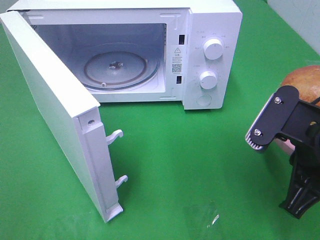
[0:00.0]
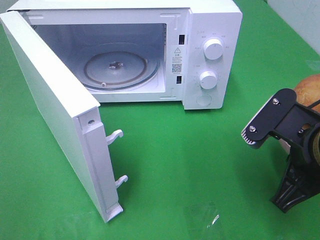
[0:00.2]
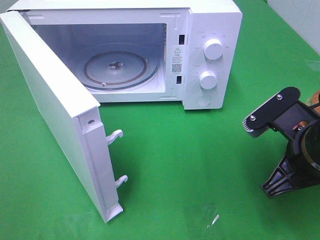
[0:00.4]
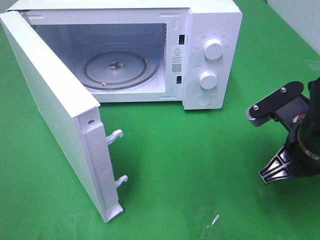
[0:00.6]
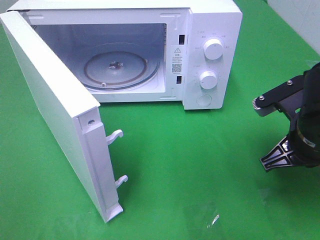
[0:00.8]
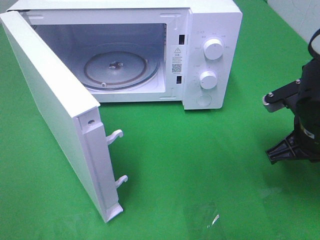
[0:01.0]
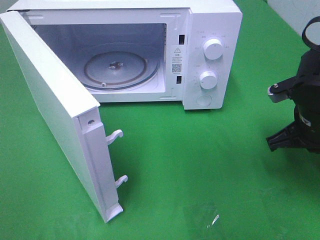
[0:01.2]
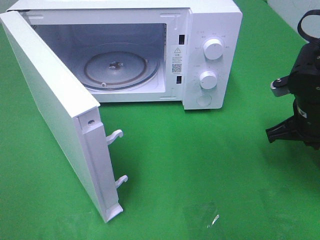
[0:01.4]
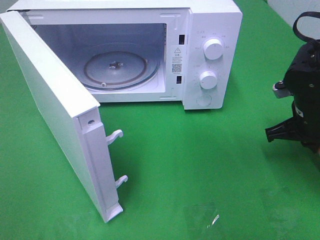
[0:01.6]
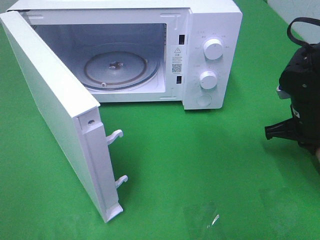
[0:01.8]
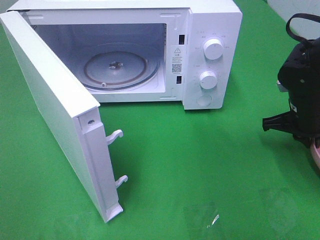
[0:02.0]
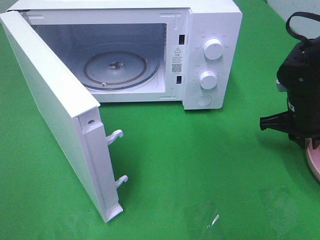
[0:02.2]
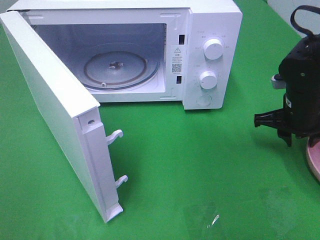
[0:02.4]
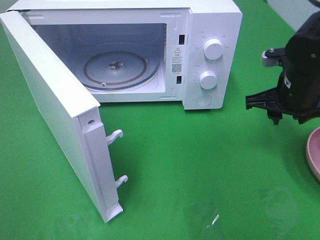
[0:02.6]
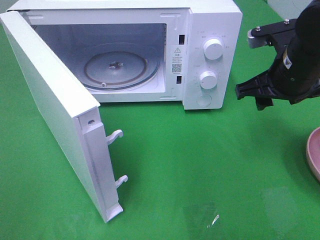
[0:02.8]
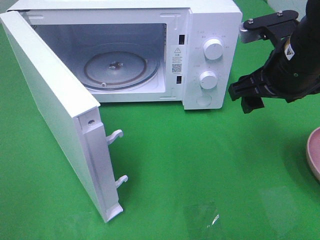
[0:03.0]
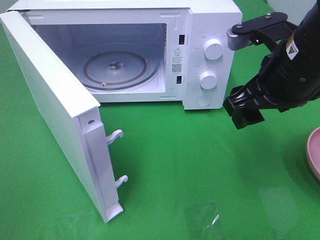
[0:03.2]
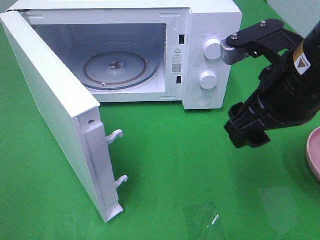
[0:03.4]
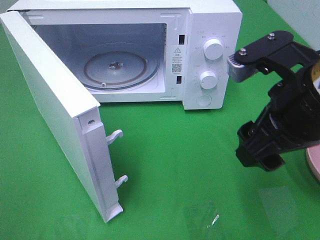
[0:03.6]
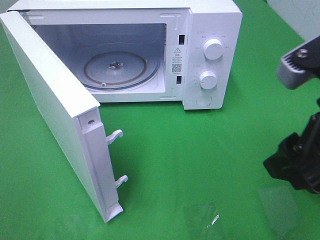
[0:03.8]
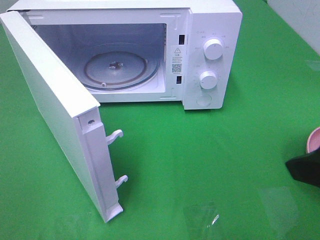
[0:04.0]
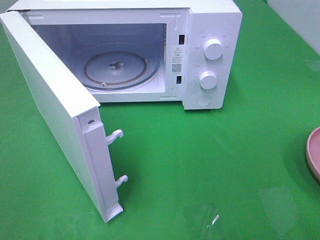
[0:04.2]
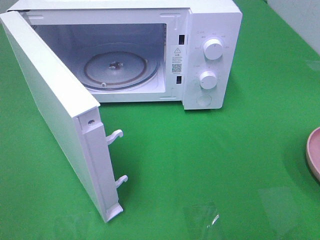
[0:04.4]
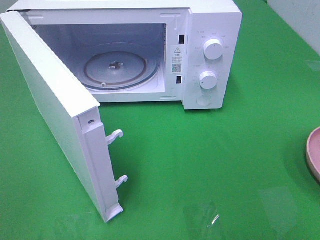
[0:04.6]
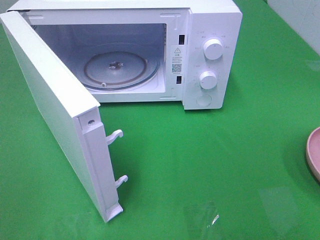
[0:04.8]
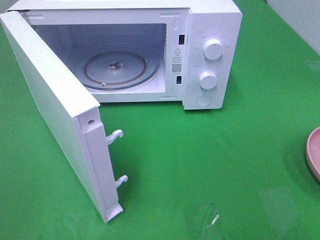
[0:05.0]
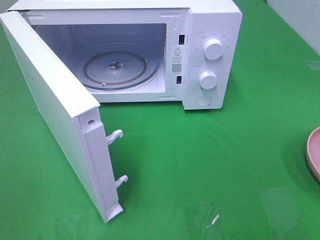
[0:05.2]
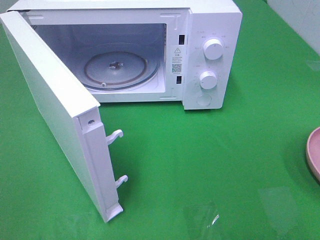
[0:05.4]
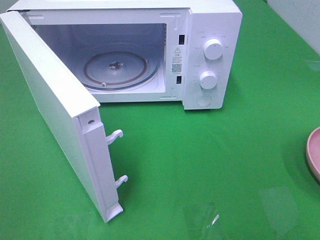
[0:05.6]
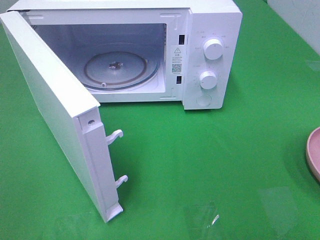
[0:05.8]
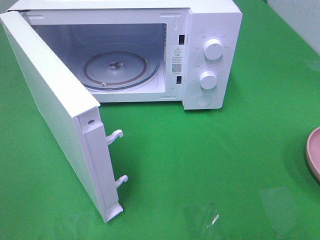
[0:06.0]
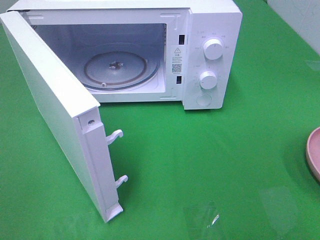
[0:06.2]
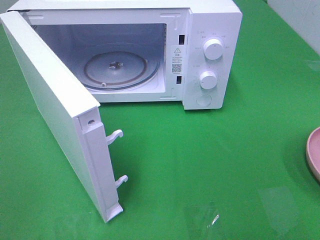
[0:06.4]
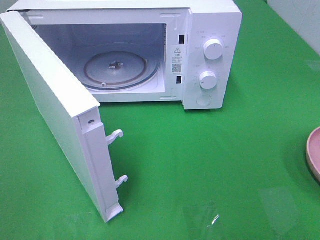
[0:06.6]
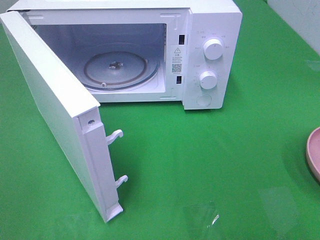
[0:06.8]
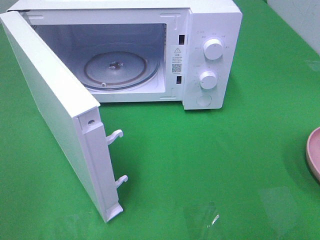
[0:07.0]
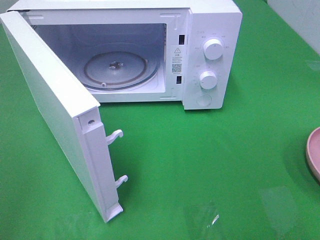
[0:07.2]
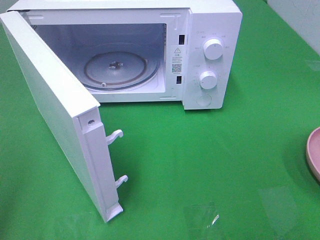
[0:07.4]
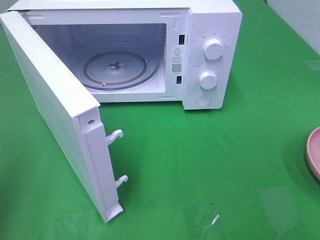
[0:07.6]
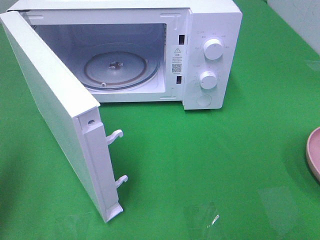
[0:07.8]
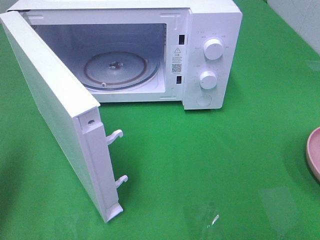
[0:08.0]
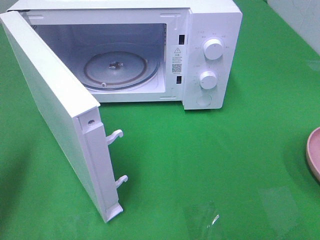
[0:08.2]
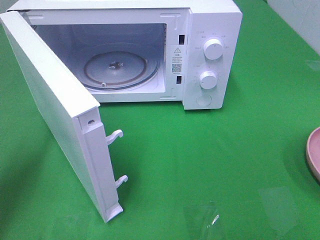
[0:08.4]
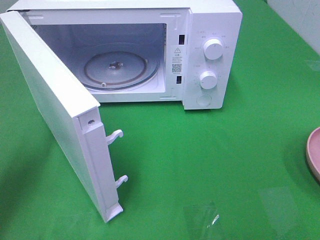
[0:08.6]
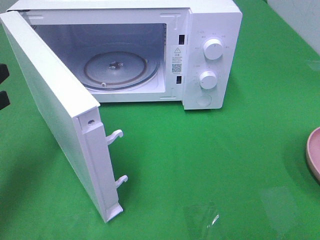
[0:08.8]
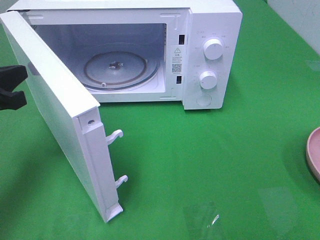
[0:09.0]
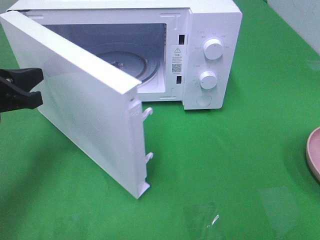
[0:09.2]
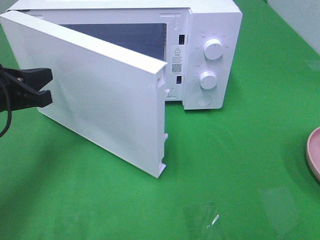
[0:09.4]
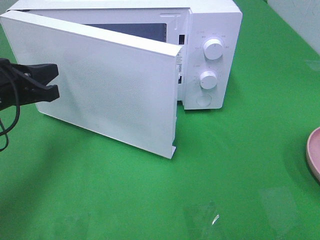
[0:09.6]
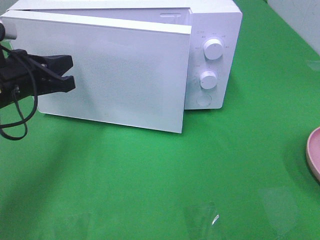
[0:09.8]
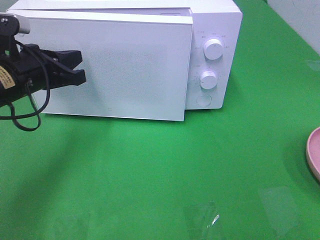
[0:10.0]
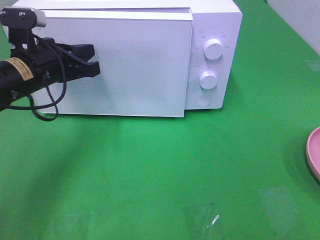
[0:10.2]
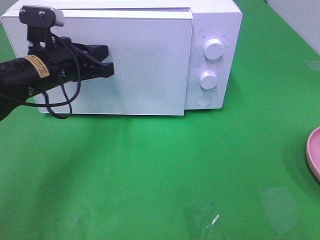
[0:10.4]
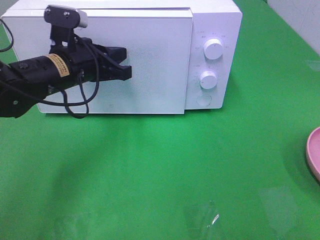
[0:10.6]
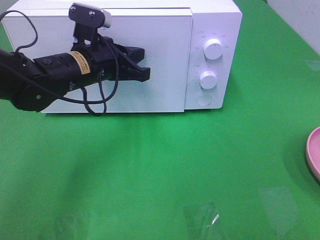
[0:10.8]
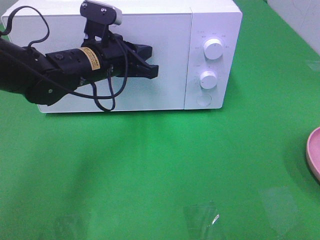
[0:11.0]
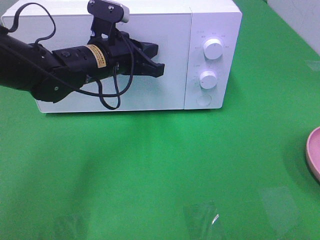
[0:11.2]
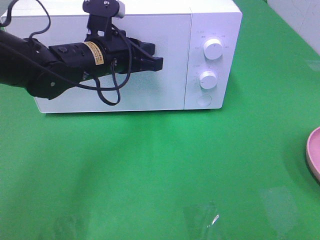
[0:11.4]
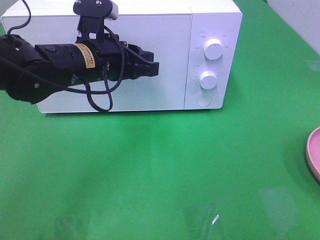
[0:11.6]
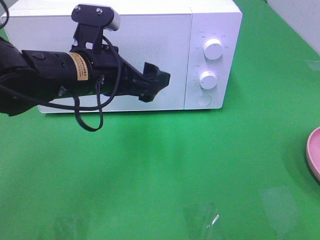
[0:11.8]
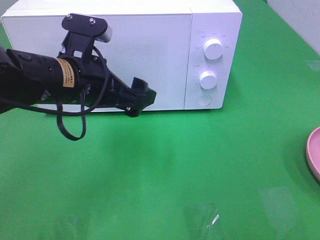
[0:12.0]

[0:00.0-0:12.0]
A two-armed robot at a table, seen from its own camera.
Task of the whole recording: Heat the burger.
Step, 0:00.0 to 0:02.0: Right hand: place the plate on the table.
Step, 0:02.2 to 0:11.4: Left hand: close the microwave door.
0:00.0 to 0:01.6: The right gripper goes approximately 15 cm forward, downward and to the right.
0:01.6 to 0:03.0: The right gripper shifts approximately 15 cm upward and to the left, and opens.
0:03.0 to 0:04.4: The right gripper is displaced backward and to the right by approximately 25 cm.
0:07.6 to 0:09.0: The left gripper goes about 20 cm forward and downward.
0:09.0 to 0:10.4: The left gripper heads to the right and forward, covering approximately 15 cm.
0:10.4 to 0:12.0: The left gripper shifts approximately 10 cm backward and to the right, and opens.

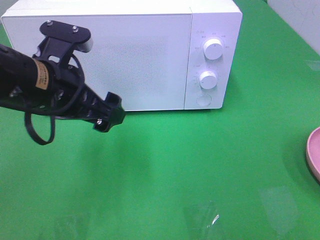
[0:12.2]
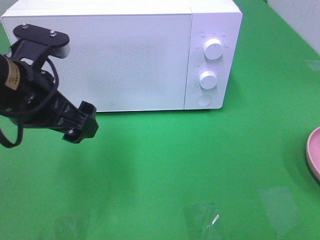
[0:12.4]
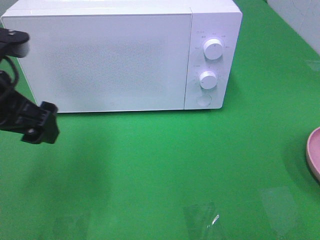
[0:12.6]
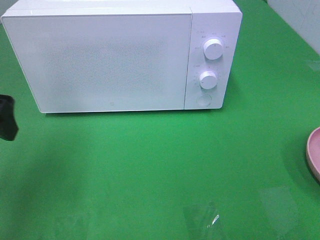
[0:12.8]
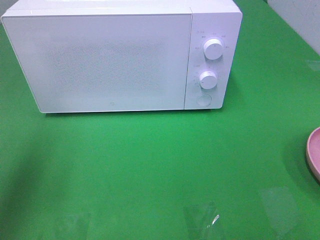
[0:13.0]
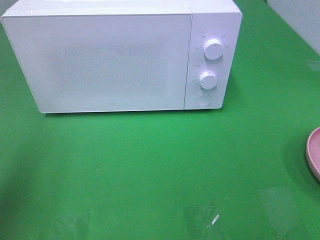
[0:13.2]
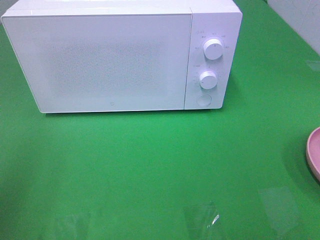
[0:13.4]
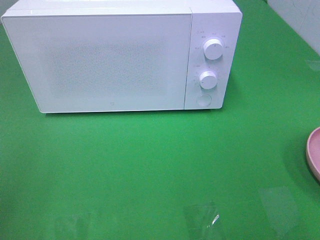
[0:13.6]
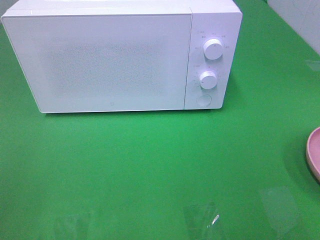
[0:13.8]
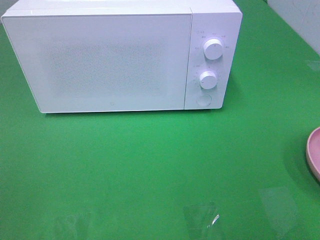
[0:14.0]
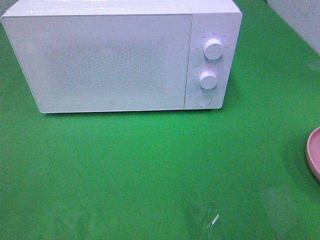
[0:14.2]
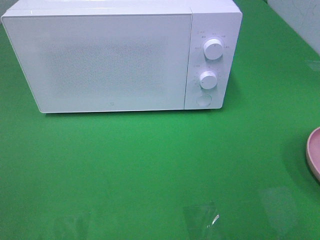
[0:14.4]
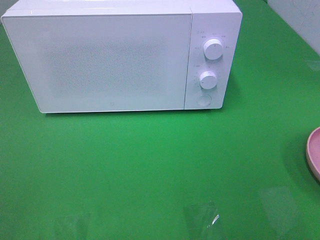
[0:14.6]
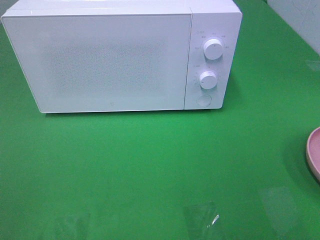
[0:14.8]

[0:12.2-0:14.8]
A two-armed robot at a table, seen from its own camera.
Task of the whole recording: Heat the burger.
0:12.2 to 0:13.4: The left gripper shifts about 25 cm to the left, backward and upward.
